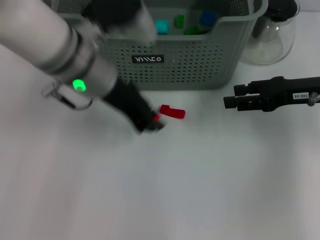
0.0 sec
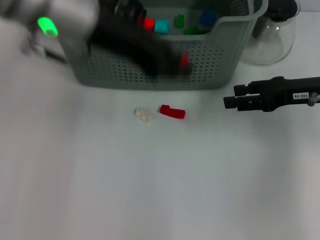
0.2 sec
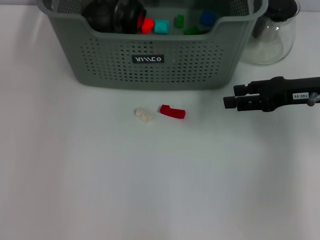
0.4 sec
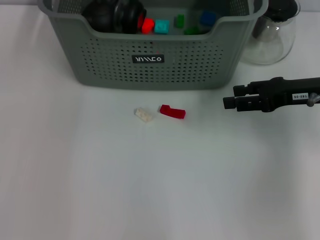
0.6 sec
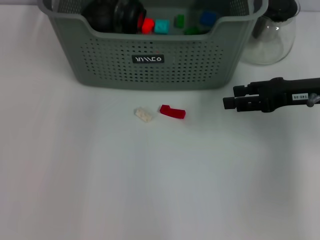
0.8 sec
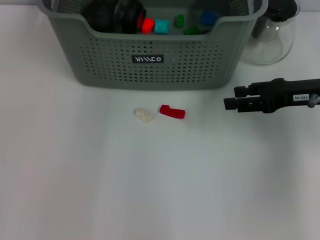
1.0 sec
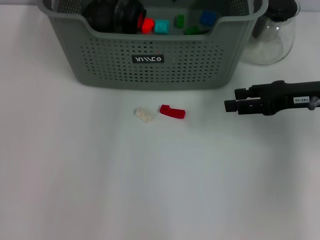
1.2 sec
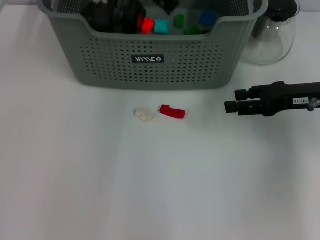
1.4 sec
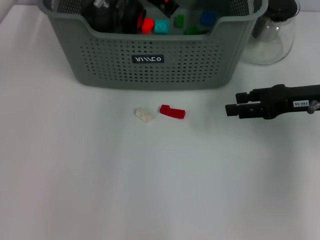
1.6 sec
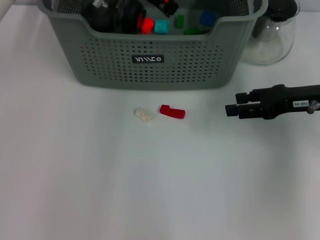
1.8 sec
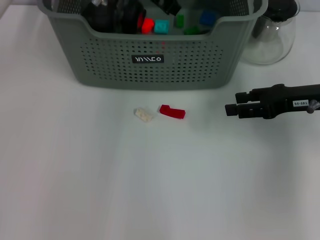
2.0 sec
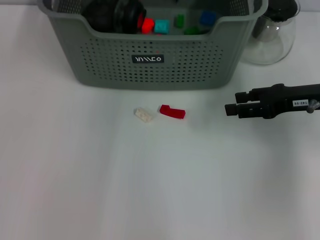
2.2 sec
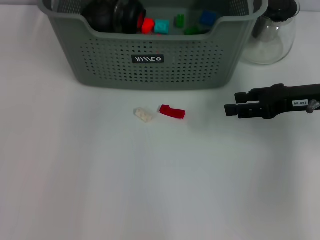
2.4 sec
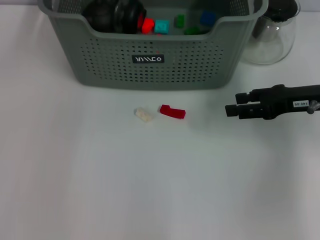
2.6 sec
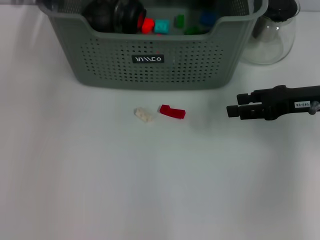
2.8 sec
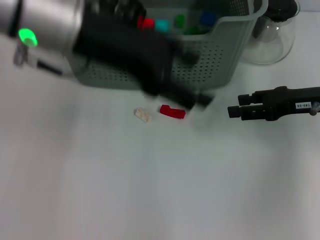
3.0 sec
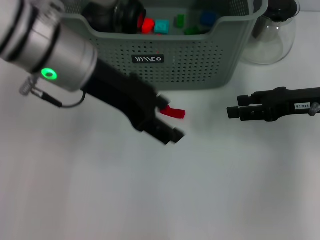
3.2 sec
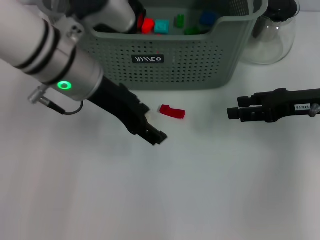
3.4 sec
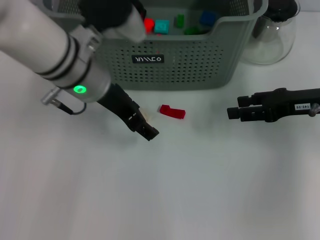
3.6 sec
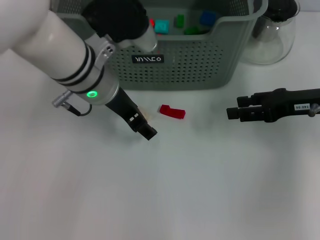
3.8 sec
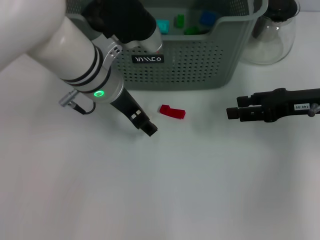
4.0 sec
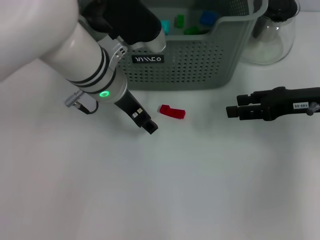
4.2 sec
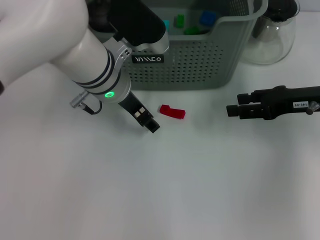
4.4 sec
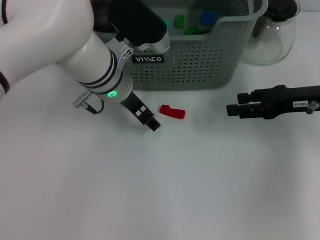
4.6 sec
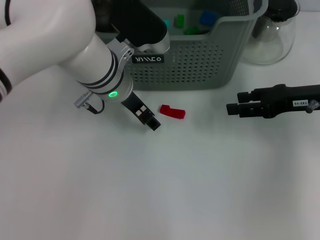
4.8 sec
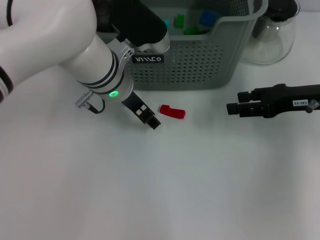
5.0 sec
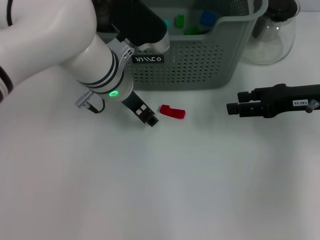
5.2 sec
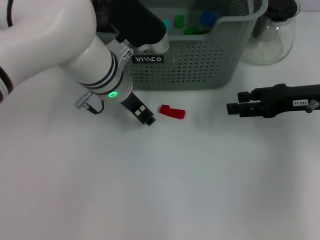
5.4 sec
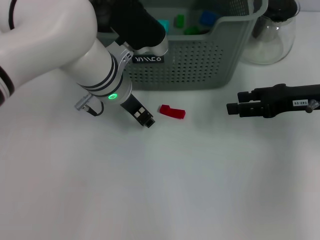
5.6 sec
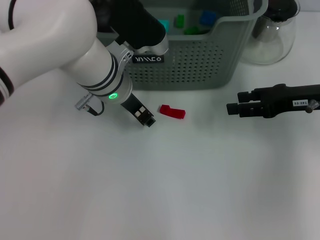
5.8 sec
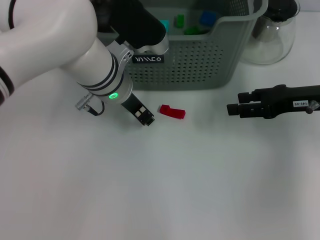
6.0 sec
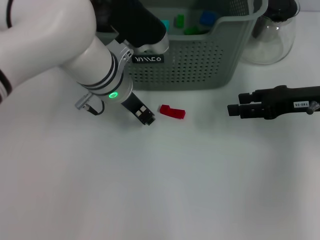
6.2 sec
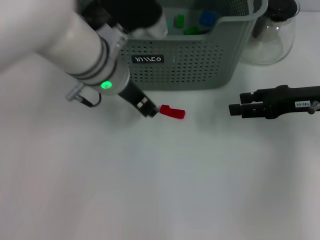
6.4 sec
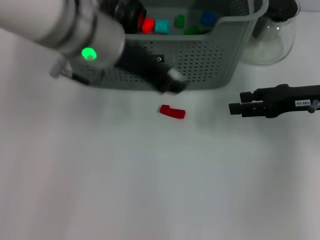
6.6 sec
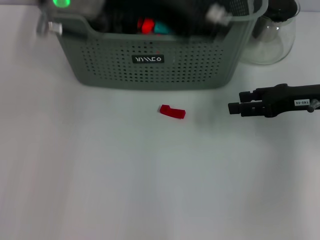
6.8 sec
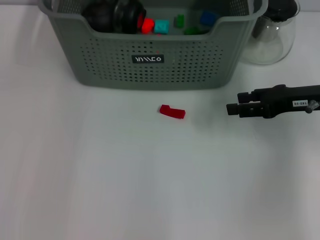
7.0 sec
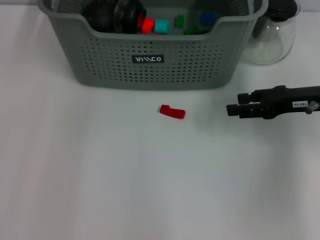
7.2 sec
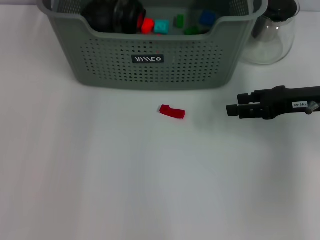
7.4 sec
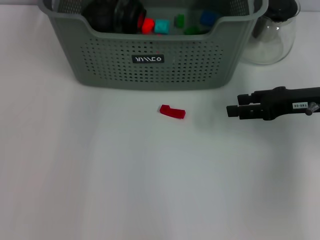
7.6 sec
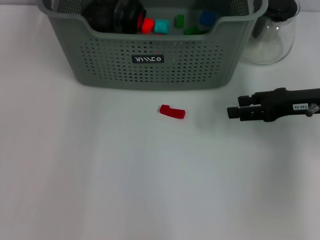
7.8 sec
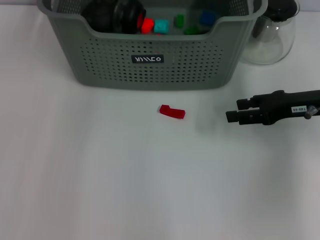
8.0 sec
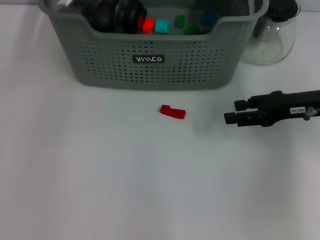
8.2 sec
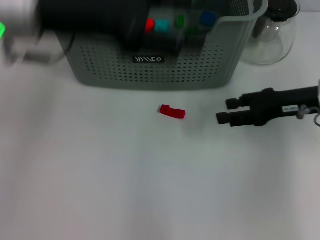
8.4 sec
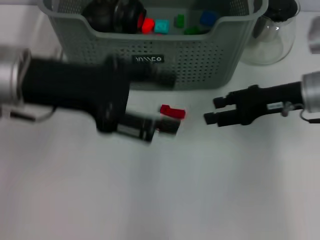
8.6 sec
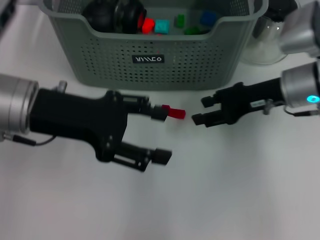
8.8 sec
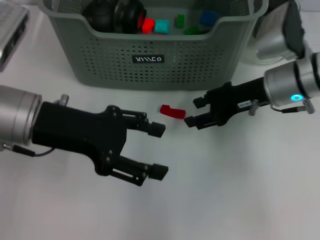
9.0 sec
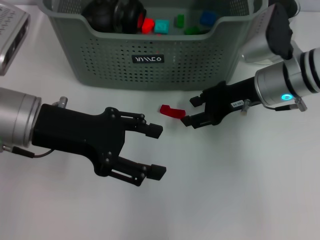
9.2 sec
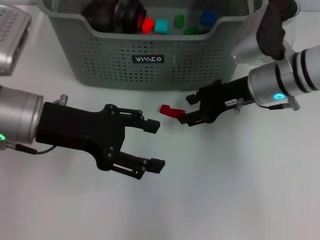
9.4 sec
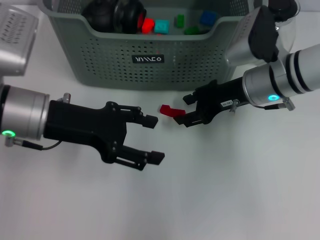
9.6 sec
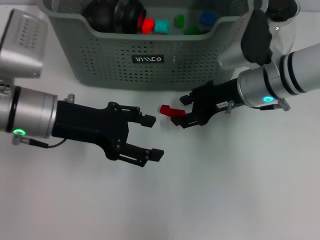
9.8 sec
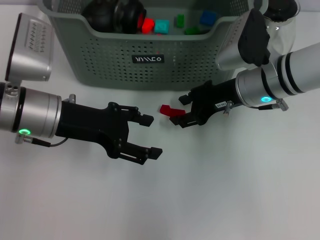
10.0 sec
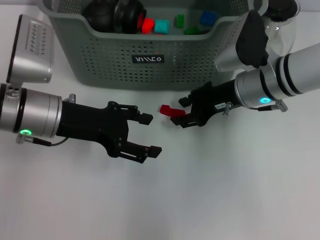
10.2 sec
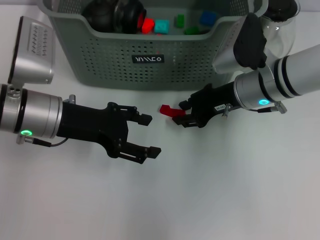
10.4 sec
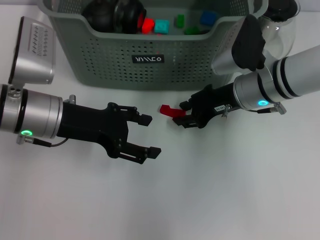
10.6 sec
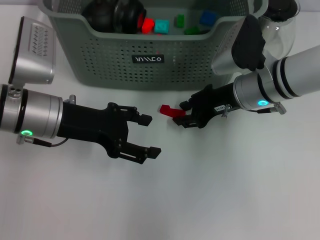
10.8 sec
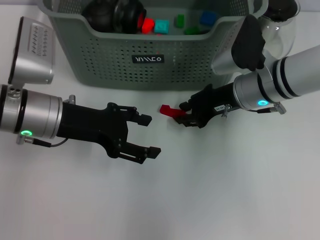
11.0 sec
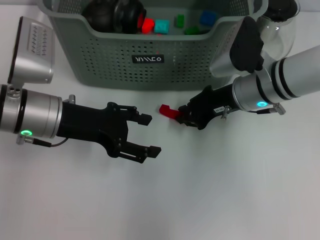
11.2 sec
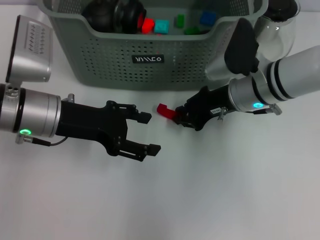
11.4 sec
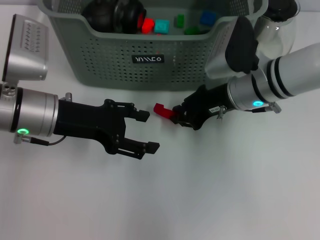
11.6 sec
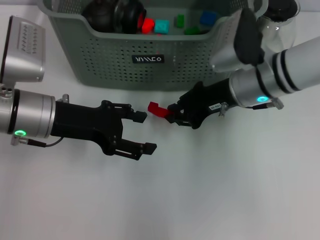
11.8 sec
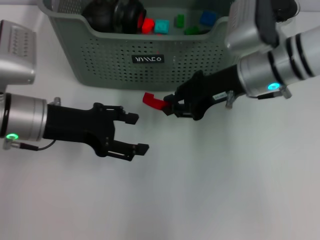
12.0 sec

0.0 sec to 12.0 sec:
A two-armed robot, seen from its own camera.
Task of the whole recording: pick up the teacup on the table and place it into the storage bin, pick up the block on the table and place it into the storage bin.
Step, 0.0 sec to 2.0 sec: Place the orange block in the storage box with left gripper.
Step, 2.2 sec to 6.0 sec: Grasp the white block with left gripper.
Step, 6.2 sec to 7.8 sec: Place the white block in the storage box with left gripper.
Step, 8.0 sec to 11.2 sec: Grasp the red block with right gripper.
0.0 sec to 1.6 sec: The left gripper moves forward, about 15 cm, and moves some 15 cm upward and comes back.
1.6 sec to 3.0 sec: The left gripper heads backward, to the left and upward, covering approximately 20 cm, and opens.
3.0 sec to 4.4 sec: The left gripper heads downward, covering roughly 15 cm.
4.4 sec to 6.0 sec: The left gripper closes its fingers.
6.0 sec to 7.6 sec: The left gripper is displaced upward and forward by roughly 15 cm.
7.6 sec to 9.0 sec: The left gripper moves backward and to the left, some 20 cm, and opens; the right gripper heads to the left, covering approximately 10 cm.
9.0 sec to 10.4 sec: The left gripper heads downward, covering about 5 cm.
10.4 sec to 12.0 sec: The right gripper closes its fingers.

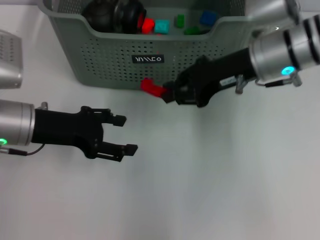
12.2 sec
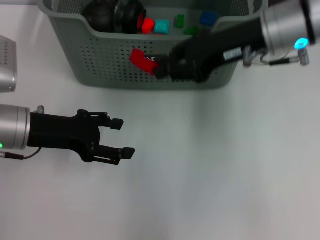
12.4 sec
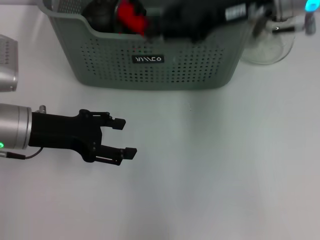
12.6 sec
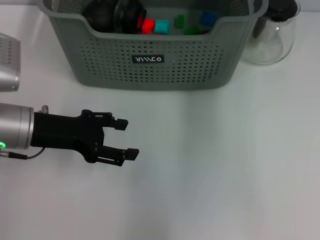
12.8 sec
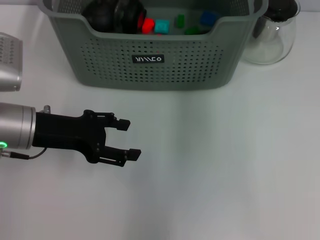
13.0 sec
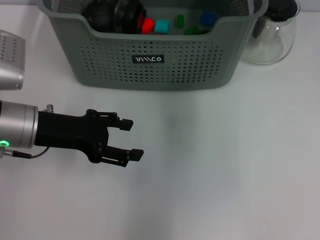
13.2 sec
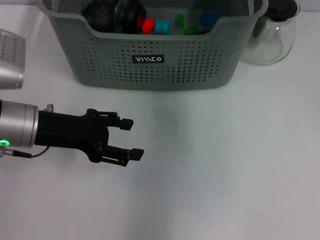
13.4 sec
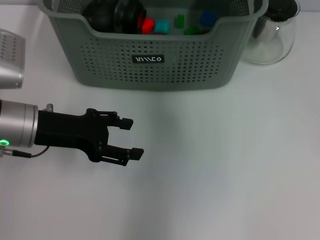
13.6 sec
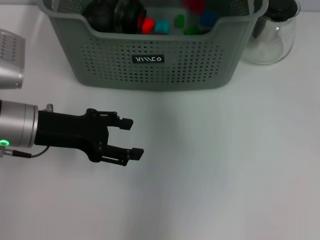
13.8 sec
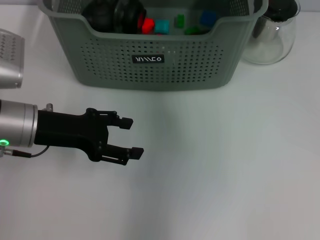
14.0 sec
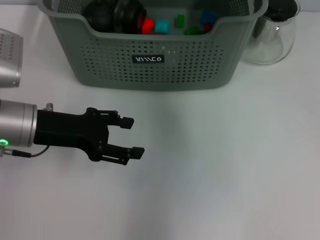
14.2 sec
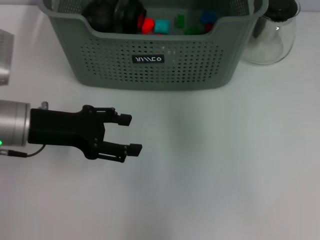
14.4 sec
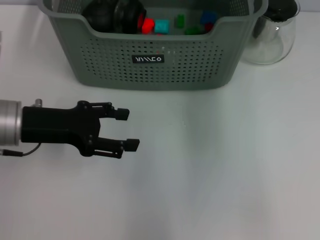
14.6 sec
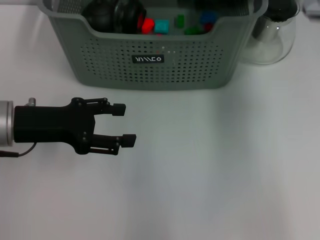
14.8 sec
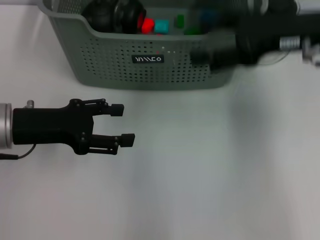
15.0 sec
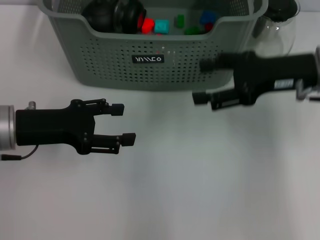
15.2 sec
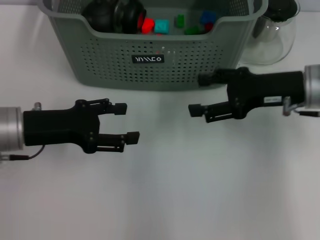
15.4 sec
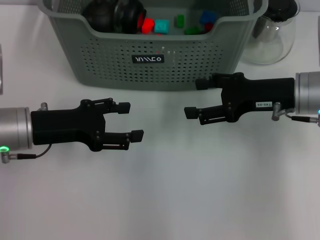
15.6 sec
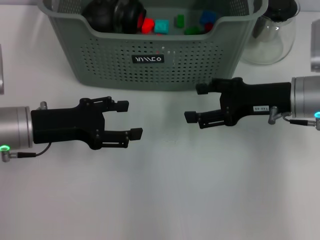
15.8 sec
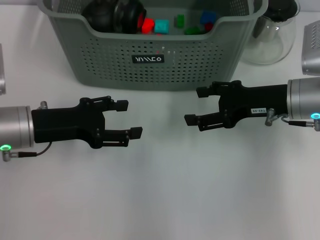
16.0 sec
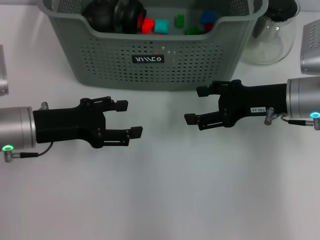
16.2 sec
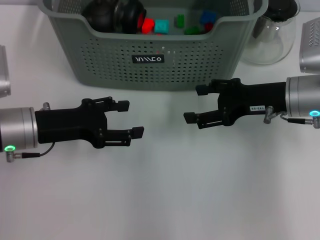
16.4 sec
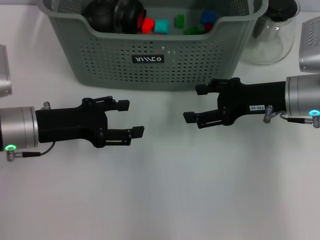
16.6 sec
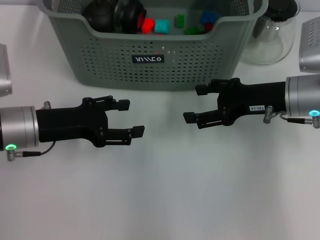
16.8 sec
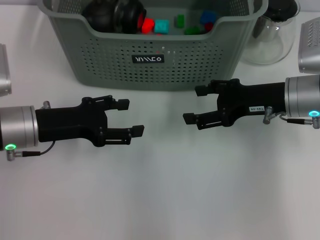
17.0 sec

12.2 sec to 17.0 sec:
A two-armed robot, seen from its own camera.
Task of the whole recording: pick up the teacup on the table and place it into the storage bin, pick up the block on the table and place it into the storage bin.
Step, 12.2 sec to 13.8 sec: Place the red block in the storage box with right gripper.
12.2 sec to 13.8 sec: The right gripper shifts approximately 10 cm forward and upward.
13.8 sec to 15.4 sec: The right gripper heads backward, to the right and downward, covering some 20 cm, and opens its fingers.
15.4 sec to 17.0 sec: There are only small adjustments of the grippers.
